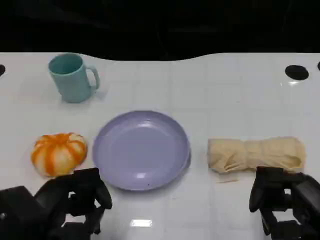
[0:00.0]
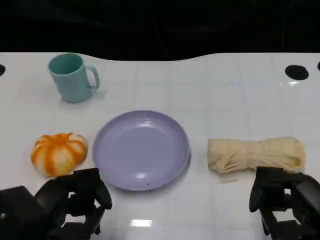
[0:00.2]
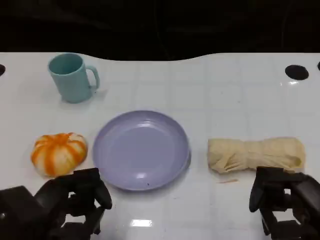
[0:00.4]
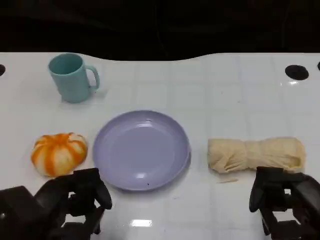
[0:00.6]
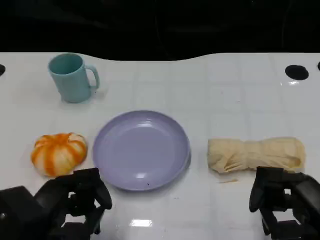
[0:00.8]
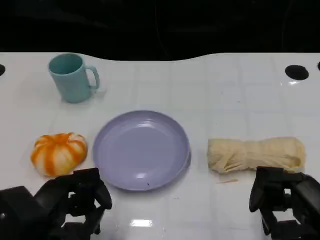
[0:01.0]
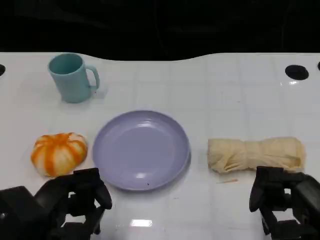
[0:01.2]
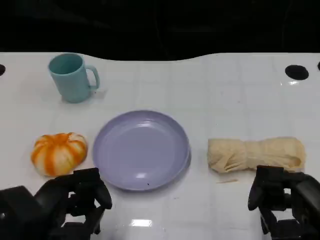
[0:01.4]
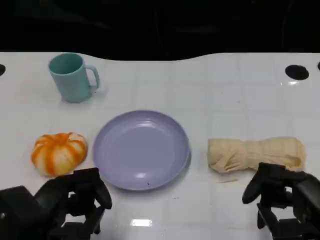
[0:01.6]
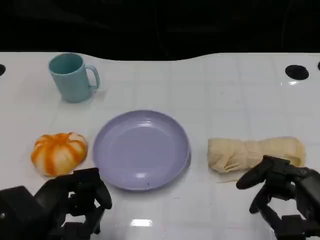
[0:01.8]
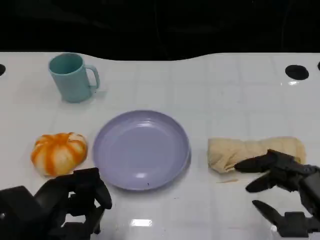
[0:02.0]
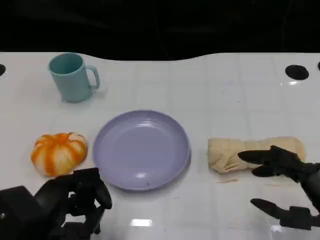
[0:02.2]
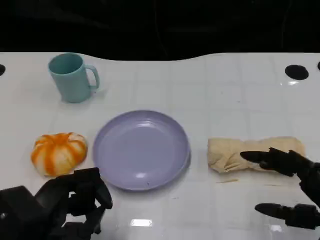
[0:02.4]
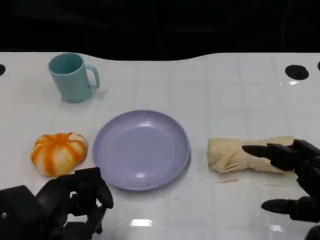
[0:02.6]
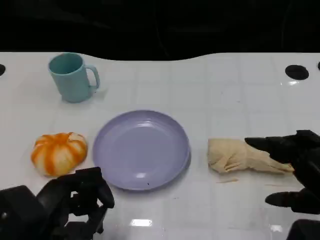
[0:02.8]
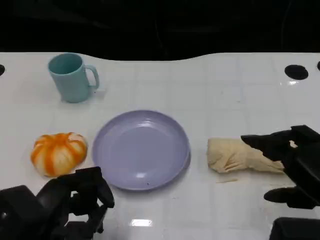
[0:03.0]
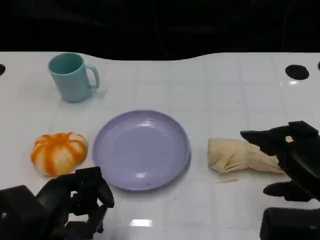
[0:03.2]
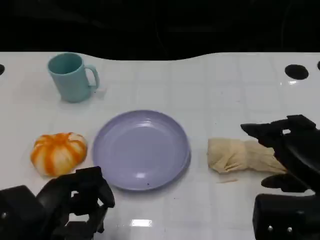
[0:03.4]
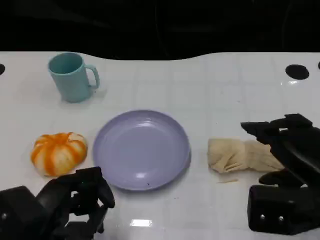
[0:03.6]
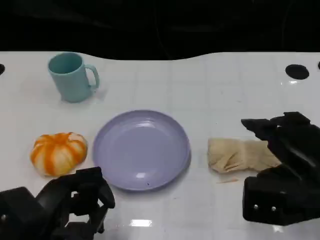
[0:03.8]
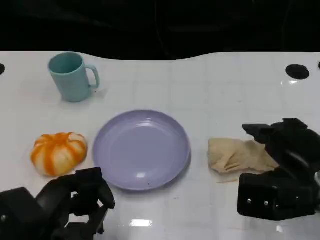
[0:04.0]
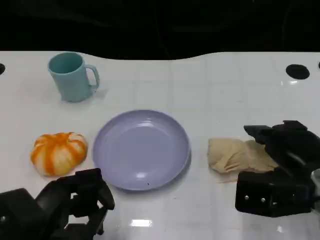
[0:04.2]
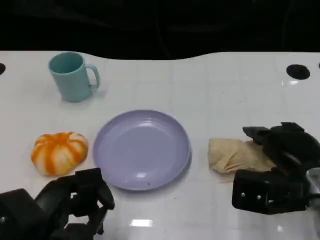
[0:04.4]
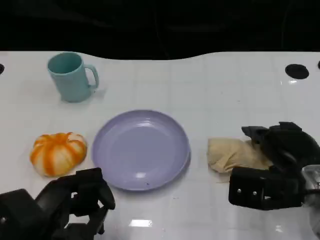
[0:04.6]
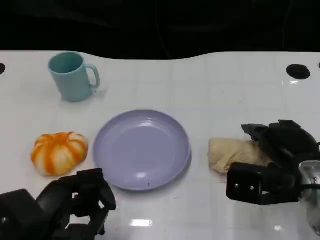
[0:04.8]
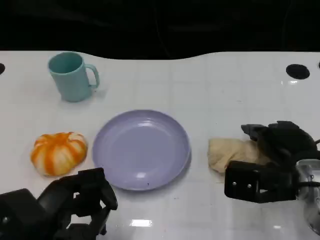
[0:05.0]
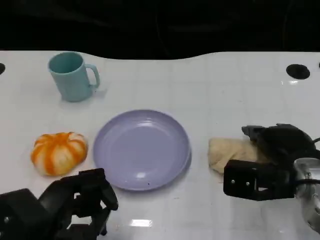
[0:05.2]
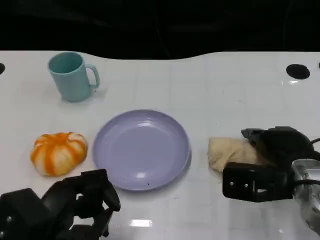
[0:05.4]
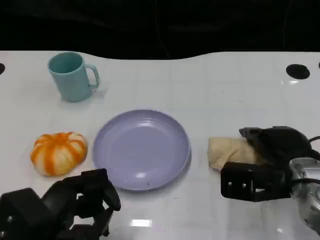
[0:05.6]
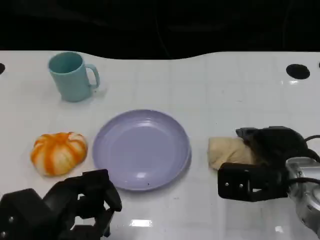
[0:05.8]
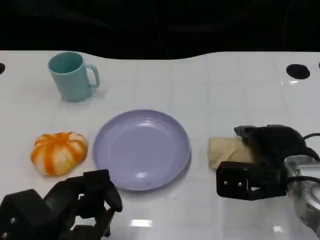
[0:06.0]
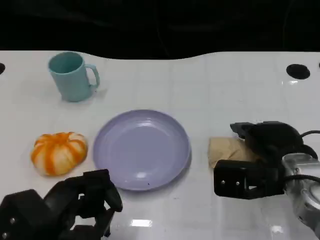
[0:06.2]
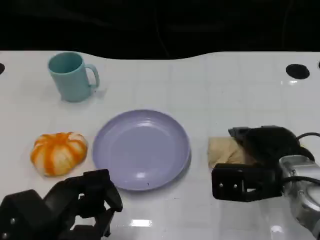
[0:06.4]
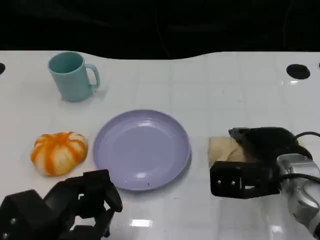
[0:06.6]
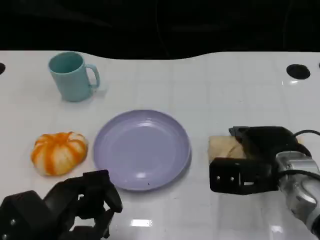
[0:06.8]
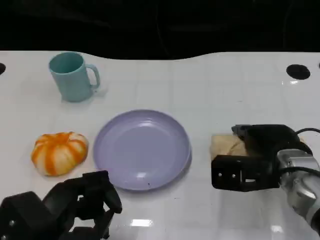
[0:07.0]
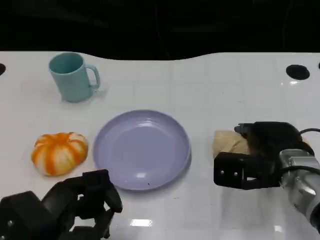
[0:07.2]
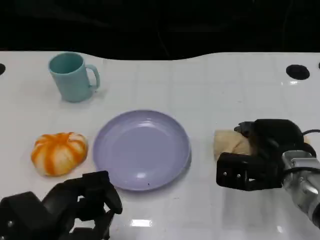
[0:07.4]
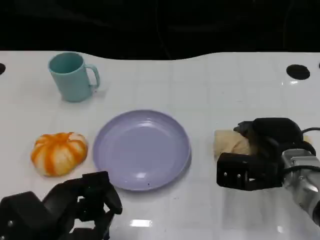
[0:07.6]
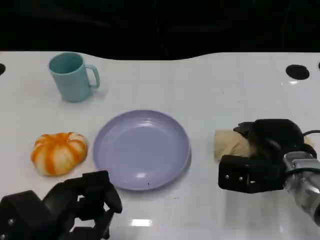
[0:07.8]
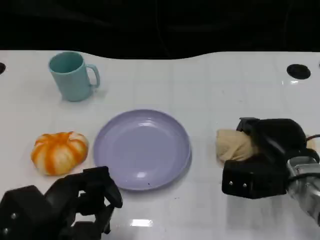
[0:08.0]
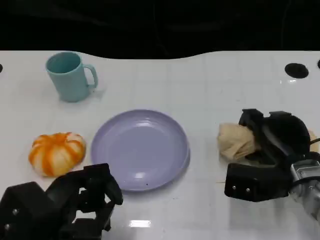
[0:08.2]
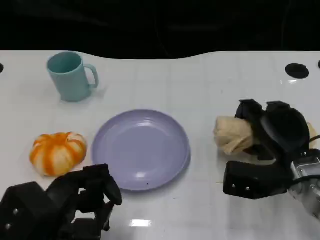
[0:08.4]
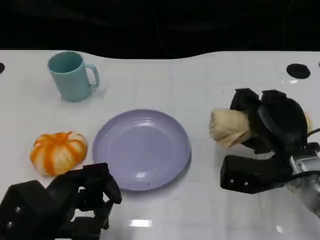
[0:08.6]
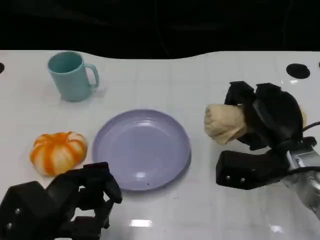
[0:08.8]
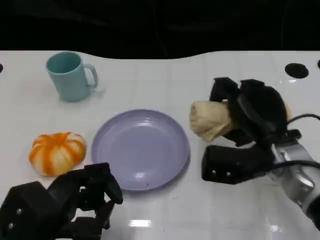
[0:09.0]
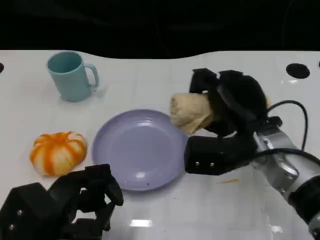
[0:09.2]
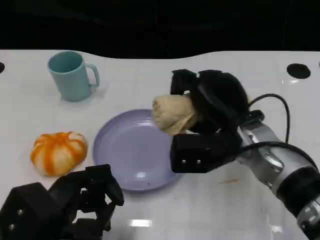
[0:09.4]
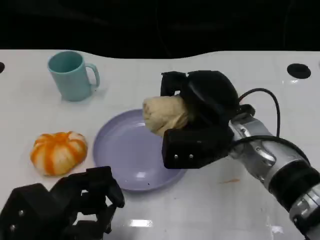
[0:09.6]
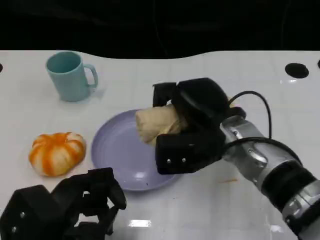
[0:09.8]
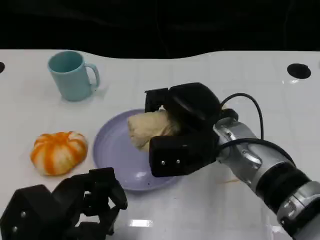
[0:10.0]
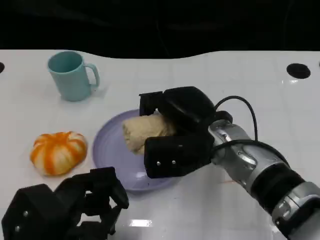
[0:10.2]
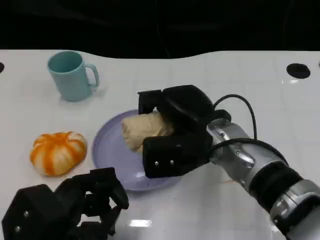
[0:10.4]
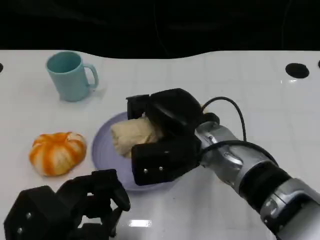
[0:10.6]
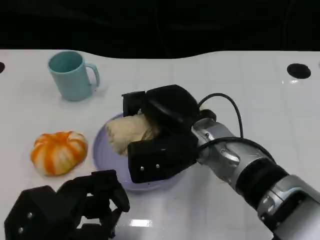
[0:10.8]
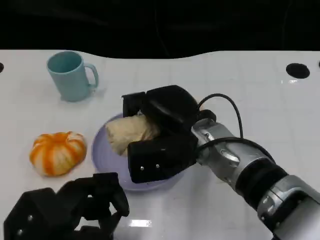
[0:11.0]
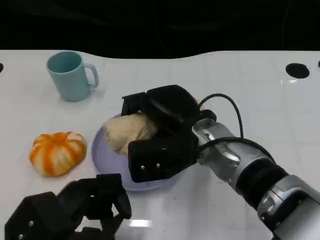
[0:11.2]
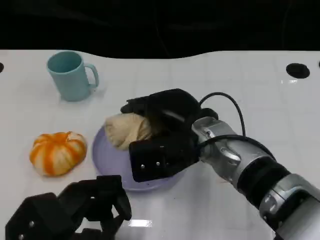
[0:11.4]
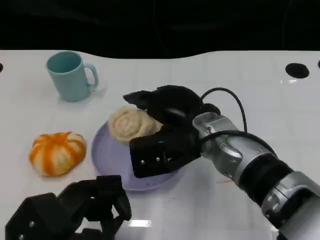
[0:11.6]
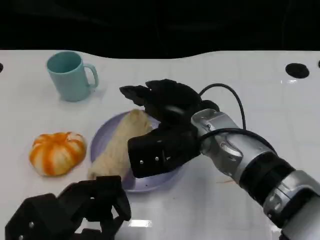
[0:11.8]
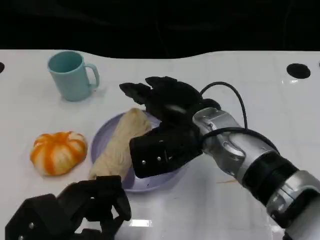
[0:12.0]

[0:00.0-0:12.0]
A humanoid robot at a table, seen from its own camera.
Task of the whole recording: Grasp the towel on the left side of the plate with the left hand and place it into the plate.
0:00.0 to 0:01.6: Neither hand changes place.
0:03.0 to 0:04.4: The right hand goes approximately 10 cm forward and downward.
0:04.4 to 0:07.6: The hands make only small movements.
0:07.6 to 0:09.0: The right hand moves some 5 cm.
0:09.0 to 0:10.4: The right hand goes some 10 cm to the left.
0:10.4 to 0:12.0: The hands move only a little.

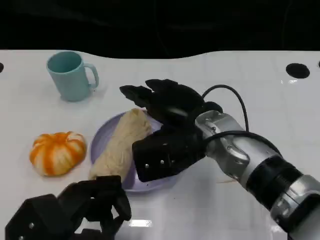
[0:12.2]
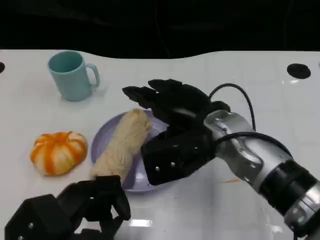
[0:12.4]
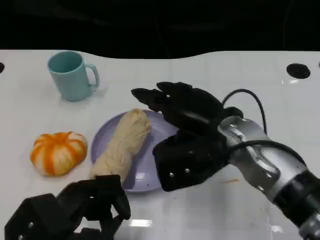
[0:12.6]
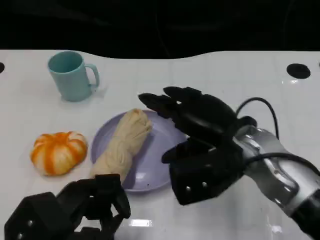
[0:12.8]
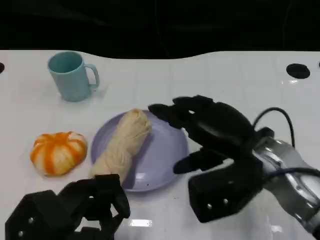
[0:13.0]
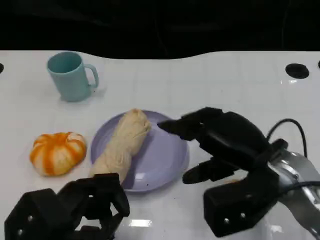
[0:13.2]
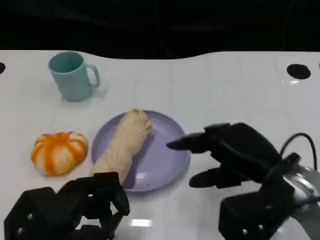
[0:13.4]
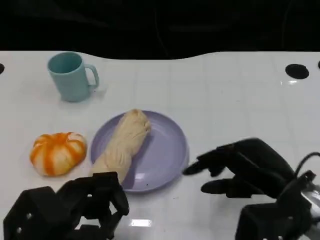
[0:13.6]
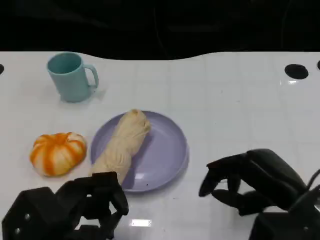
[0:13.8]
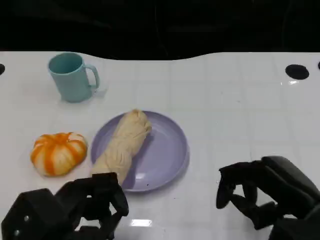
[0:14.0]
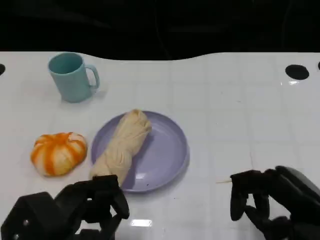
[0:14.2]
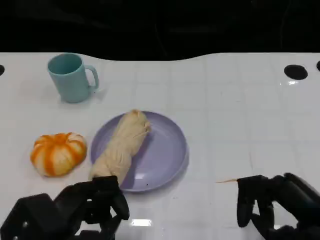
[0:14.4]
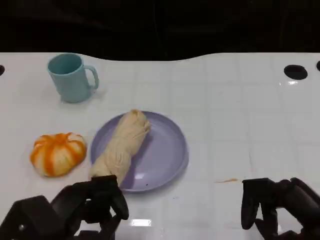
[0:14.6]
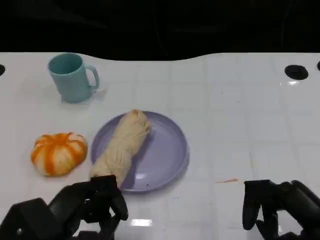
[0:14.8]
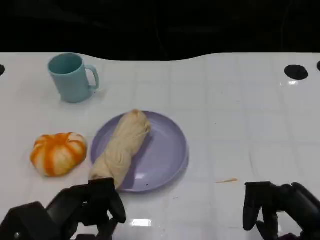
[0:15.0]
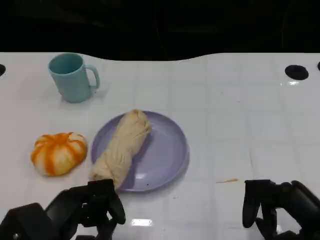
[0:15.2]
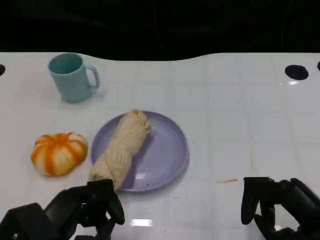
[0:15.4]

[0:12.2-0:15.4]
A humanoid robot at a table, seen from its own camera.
Task of the whole recording: Grasp the towel on the left side of the plate with the left hand and place it into the plate.
0:12.2 to 0:13.8: The right hand heads to the right and backward, covering some 15 cm.
0:13.8 to 0:15.4: The right hand shifts by approximately 5 cm.

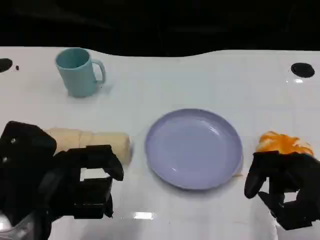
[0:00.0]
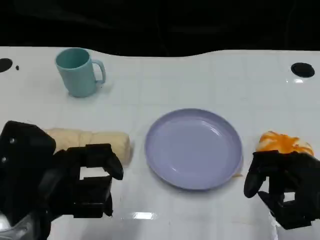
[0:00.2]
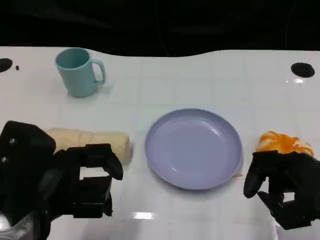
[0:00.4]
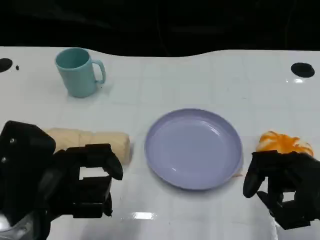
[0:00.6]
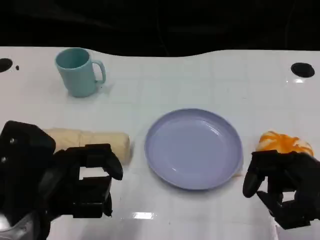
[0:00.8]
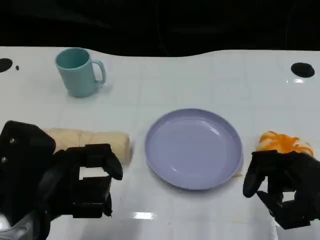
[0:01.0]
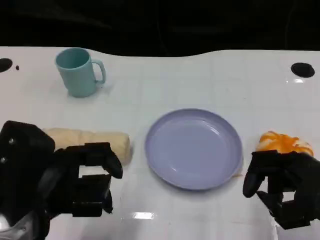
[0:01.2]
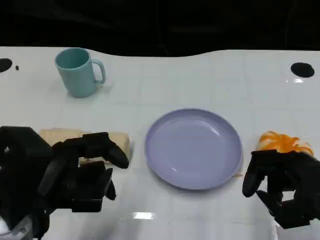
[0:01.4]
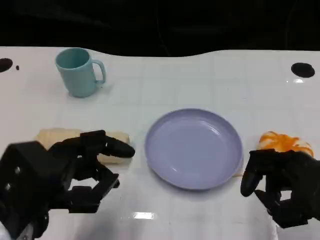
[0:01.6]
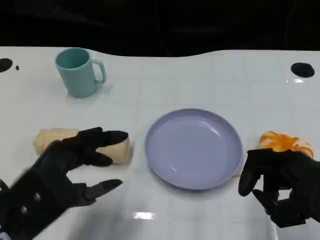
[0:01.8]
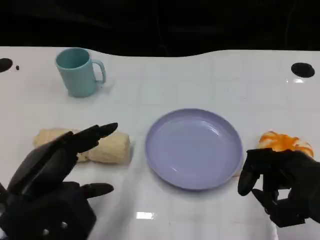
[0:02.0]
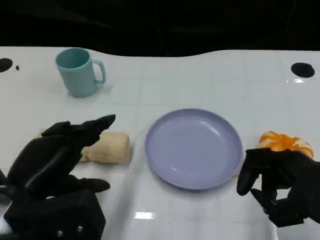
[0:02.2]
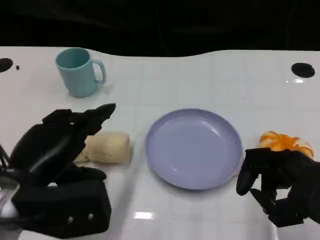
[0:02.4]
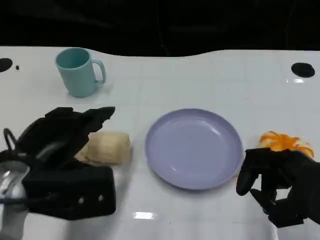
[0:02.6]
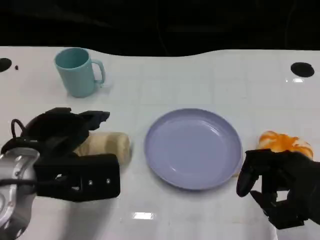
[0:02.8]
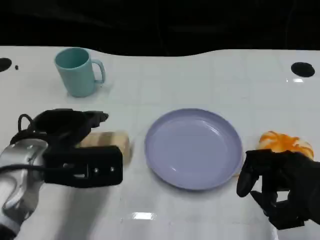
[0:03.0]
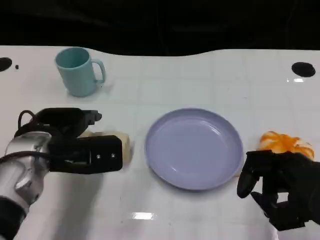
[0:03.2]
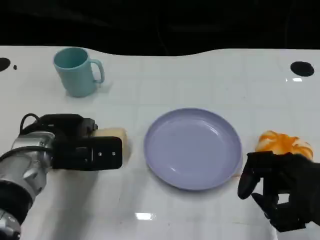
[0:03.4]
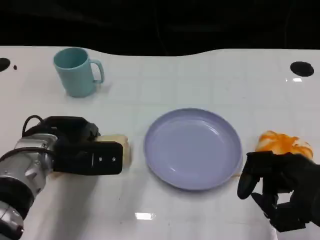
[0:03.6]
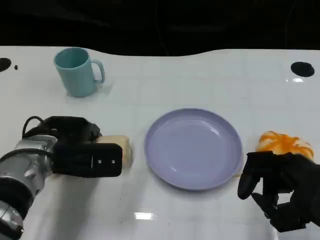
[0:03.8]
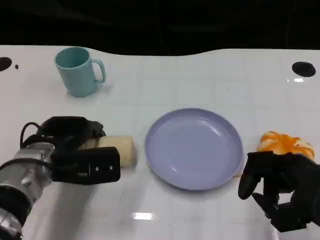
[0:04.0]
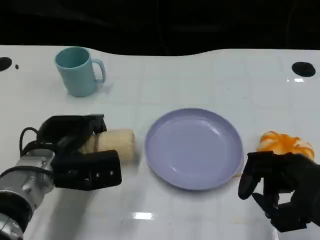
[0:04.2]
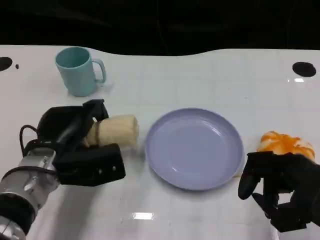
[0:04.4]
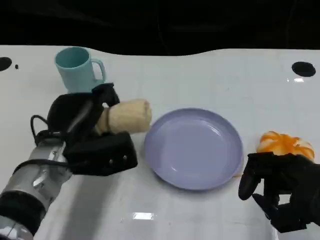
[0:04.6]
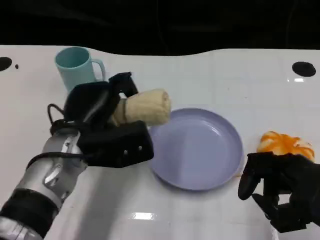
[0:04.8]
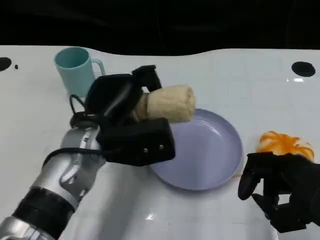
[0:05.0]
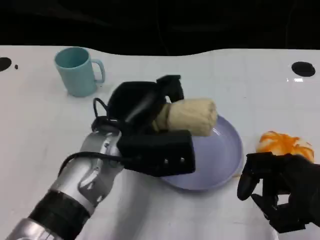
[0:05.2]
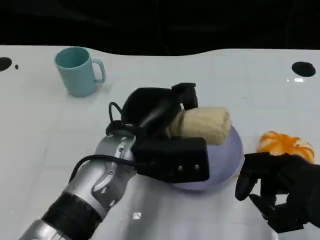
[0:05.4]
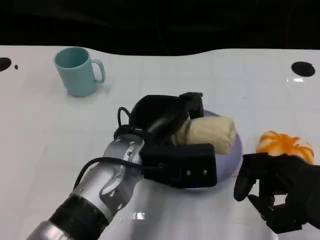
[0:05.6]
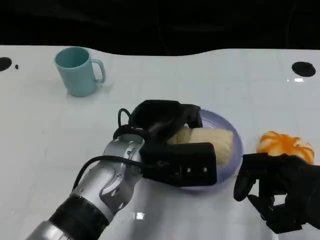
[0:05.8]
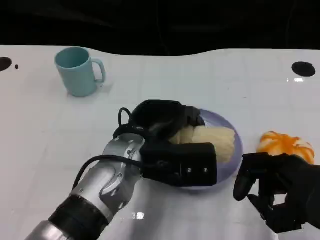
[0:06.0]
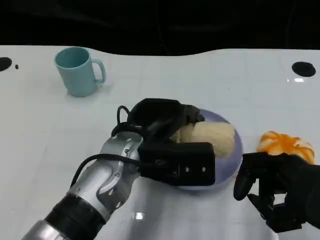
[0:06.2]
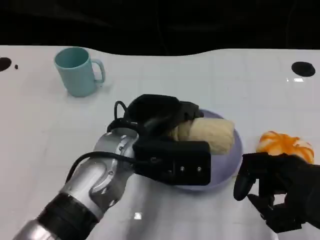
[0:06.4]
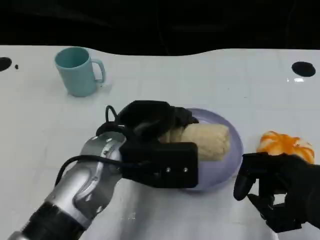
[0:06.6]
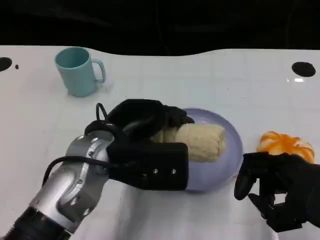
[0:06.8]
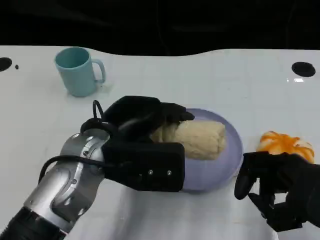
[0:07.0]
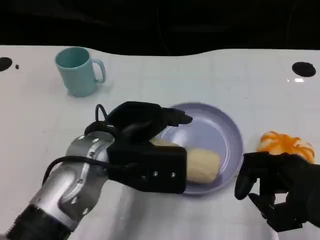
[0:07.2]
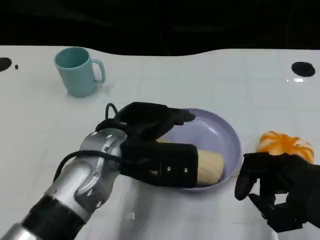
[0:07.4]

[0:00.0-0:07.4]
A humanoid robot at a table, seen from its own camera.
Task of the whole recording: Grasp the towel on the left side of the plate with the left hand and place it into the plate.
0:00.0 to 0:01.4: The hands move only a little.
0:01.4 to 0:03.0: The left hand moves forward, approximately 10 cm.
0:03.0 to 0:04.4: The left hand goes roughly 5 cm downward.
0:04.4 to 0:06.0: The left hand goes about 15 cm to the right and upward.
0:06.0 to 0:07.4: There are only small adjustments of the hands.
